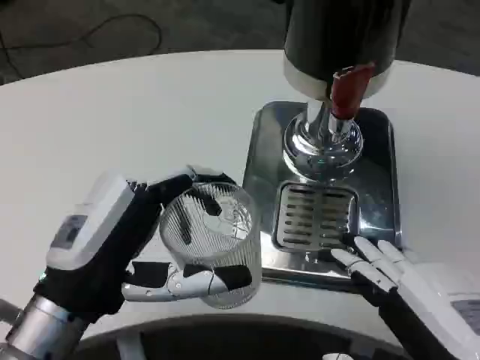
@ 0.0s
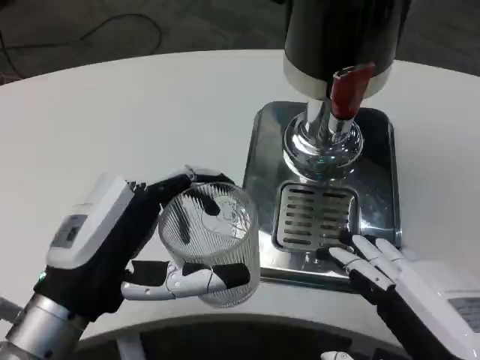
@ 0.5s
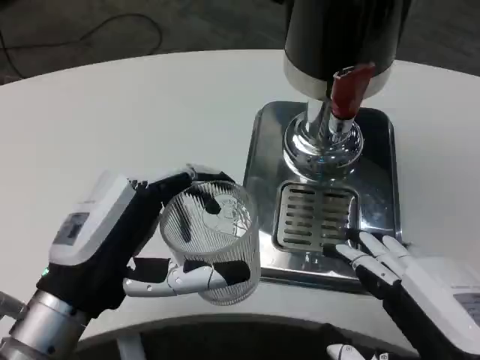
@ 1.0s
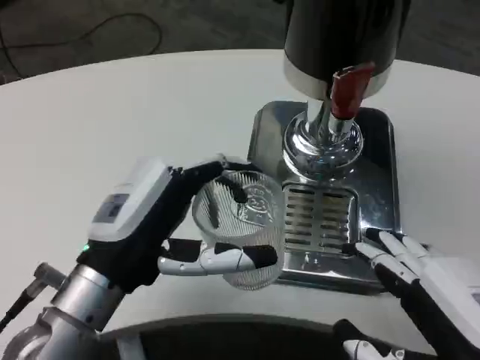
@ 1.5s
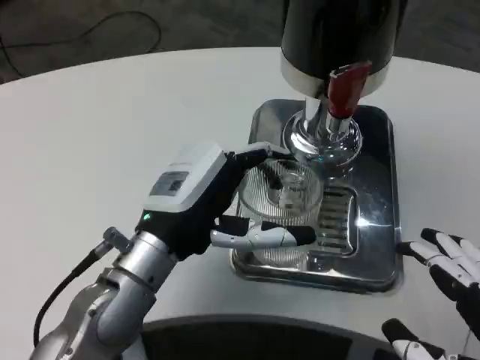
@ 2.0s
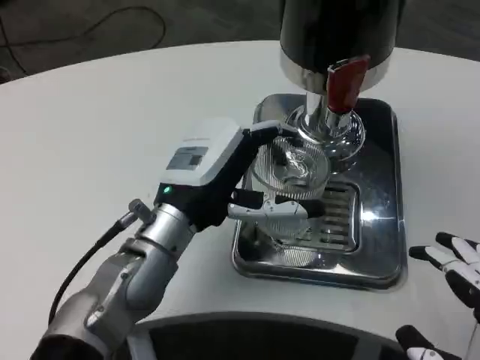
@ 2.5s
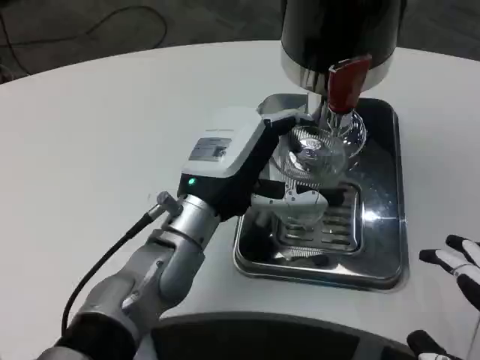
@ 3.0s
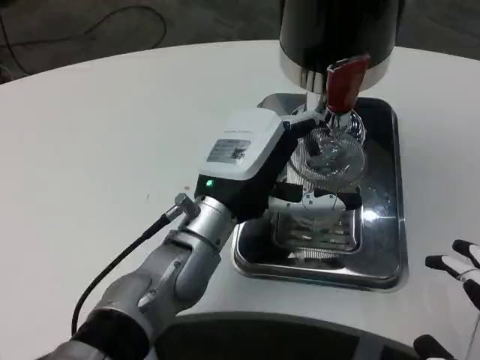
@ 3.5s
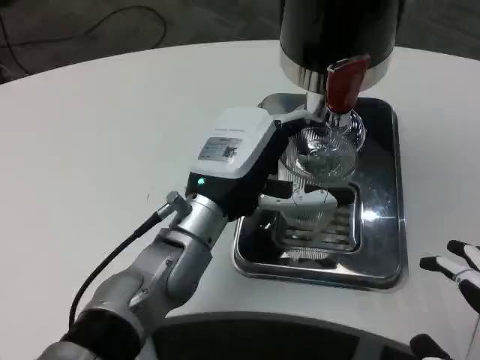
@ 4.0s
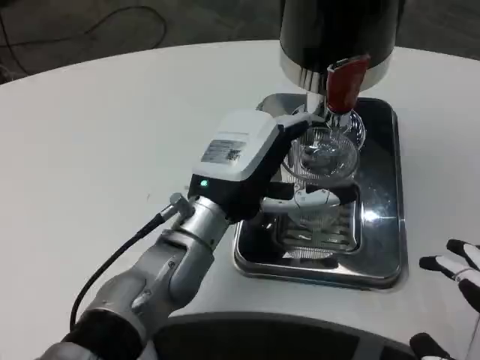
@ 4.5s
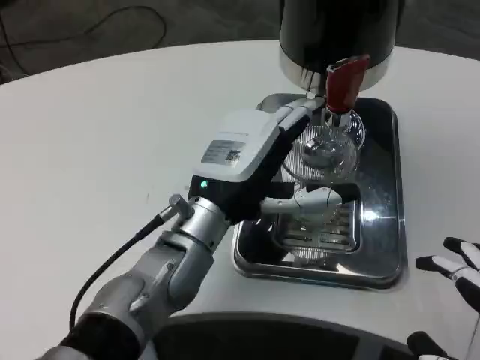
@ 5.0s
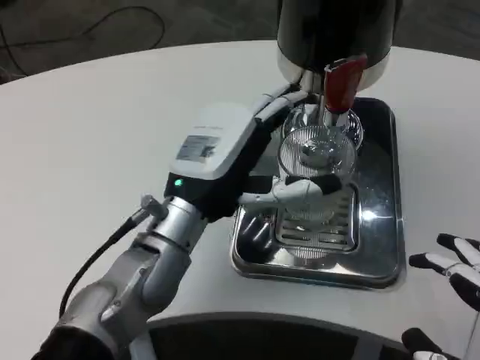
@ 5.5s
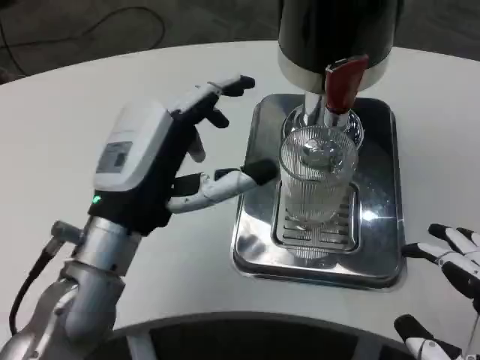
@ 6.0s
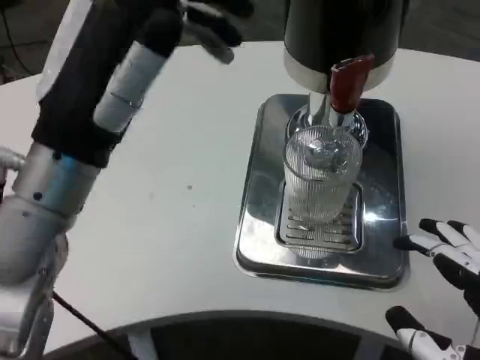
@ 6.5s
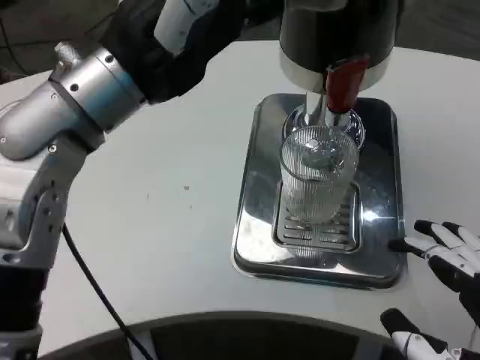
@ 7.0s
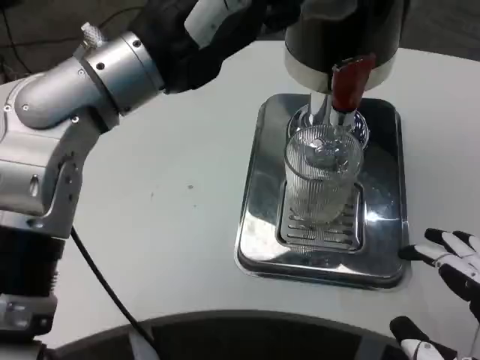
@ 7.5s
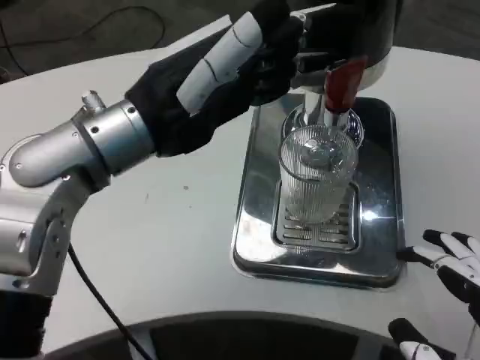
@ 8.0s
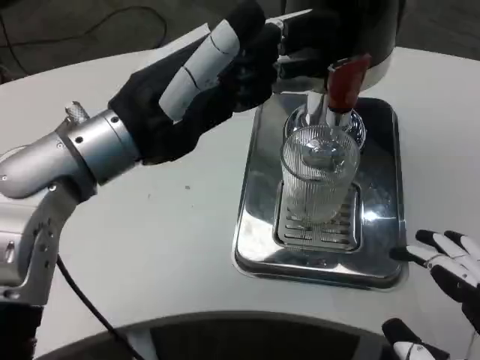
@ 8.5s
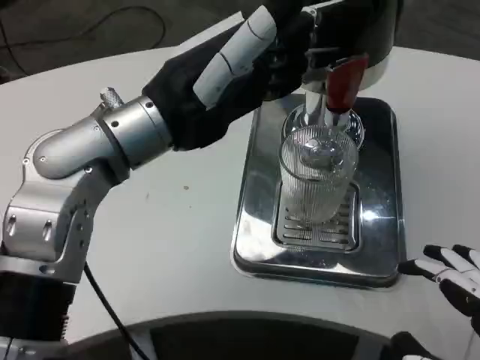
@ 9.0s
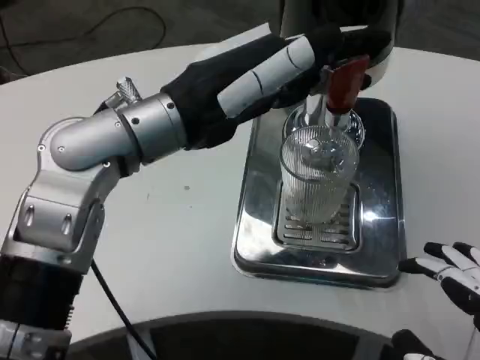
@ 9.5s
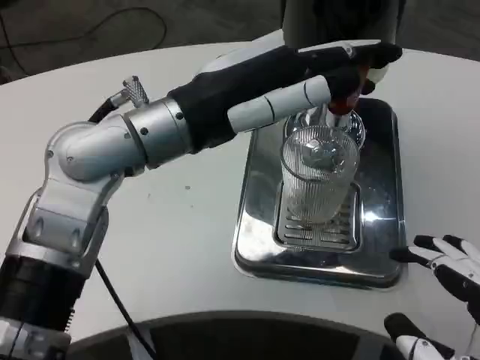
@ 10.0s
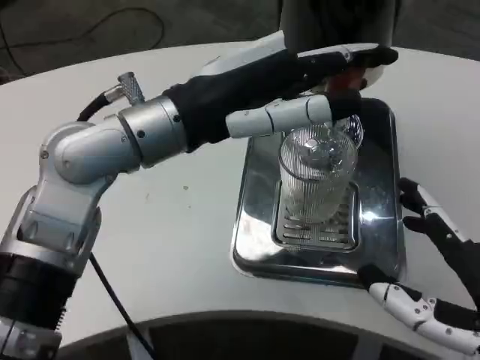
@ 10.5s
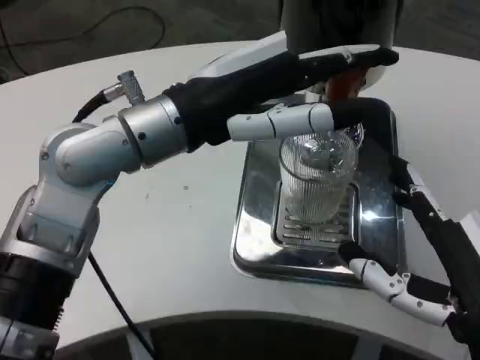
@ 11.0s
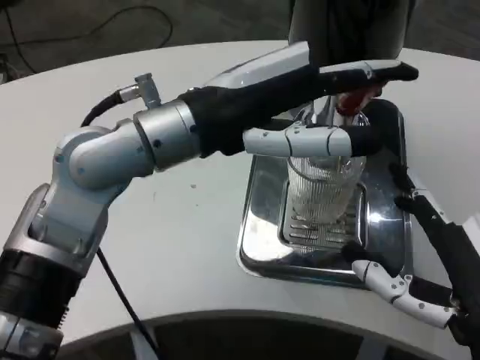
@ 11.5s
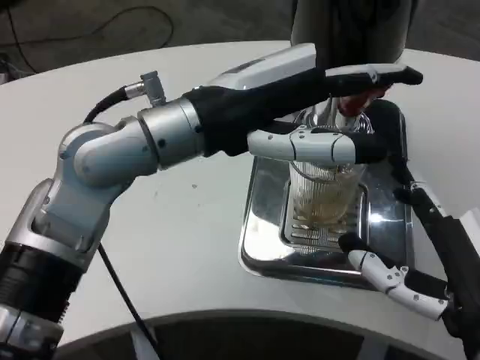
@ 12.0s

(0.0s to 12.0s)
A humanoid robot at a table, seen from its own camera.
Task of the whole recording: Grasp the cup under the faucet to collect the drink, then remove the cup.
0.0s - 2.0s: The left hand moves forward and to the right, approximately 10 cm.
2.0s - 4.0s: The left hand ends up some 5 cm from where it was.
4.0s - 6.0s: The left hand travels to the left and backward by some 10 cm.
6.0s - 8.0s: The left hand travels upward by about 10 cm.
10.0s - 12.0s: The right hand goes about 10 cm forward.

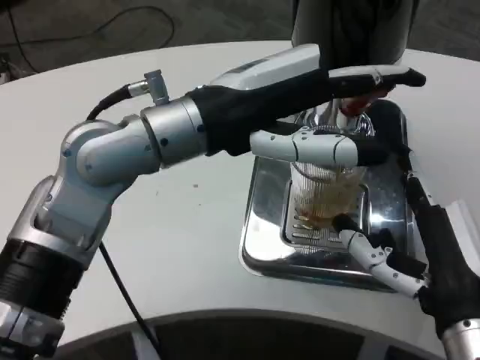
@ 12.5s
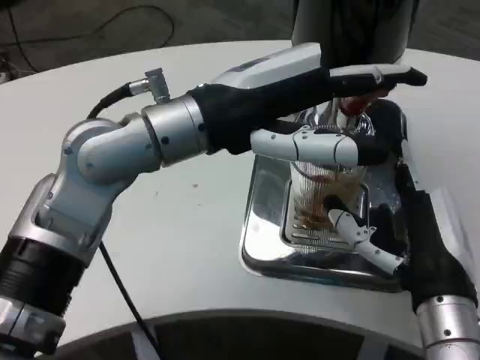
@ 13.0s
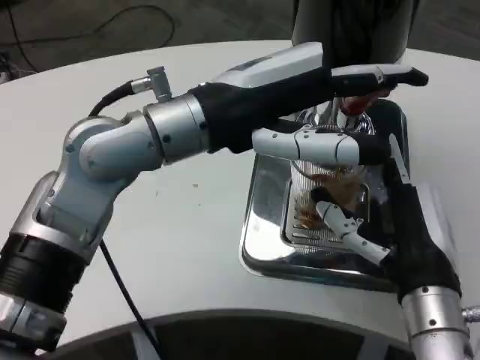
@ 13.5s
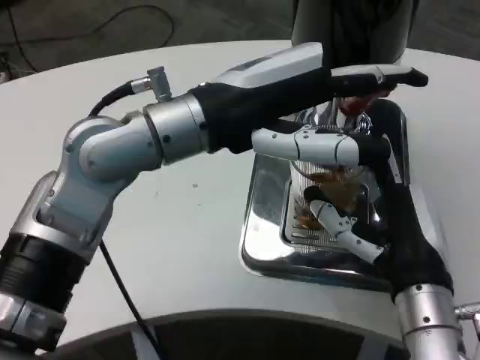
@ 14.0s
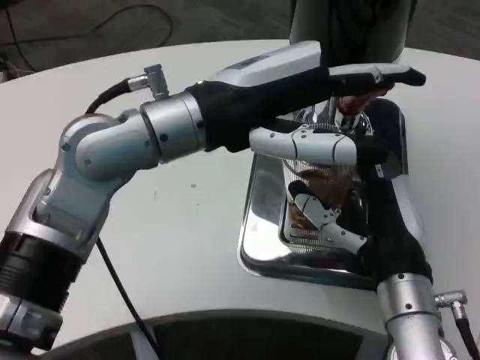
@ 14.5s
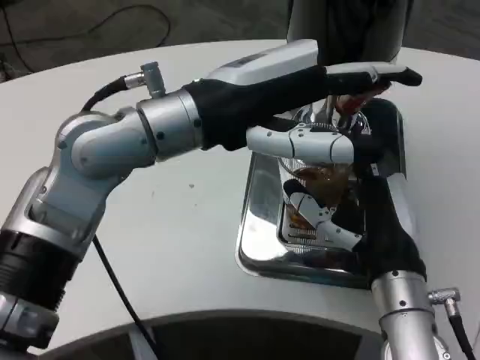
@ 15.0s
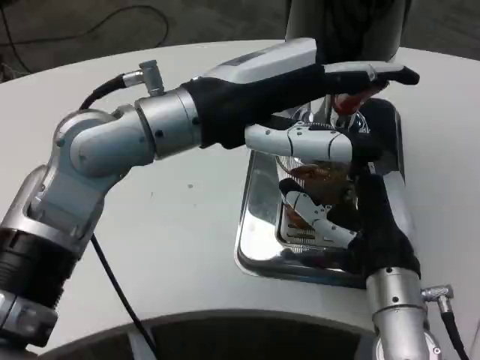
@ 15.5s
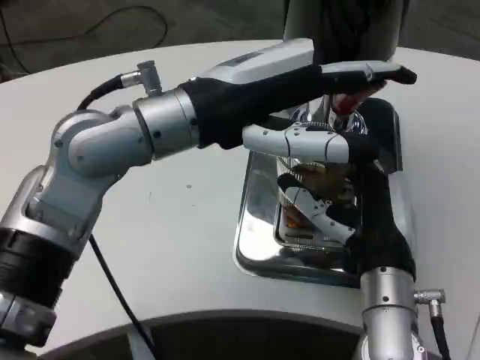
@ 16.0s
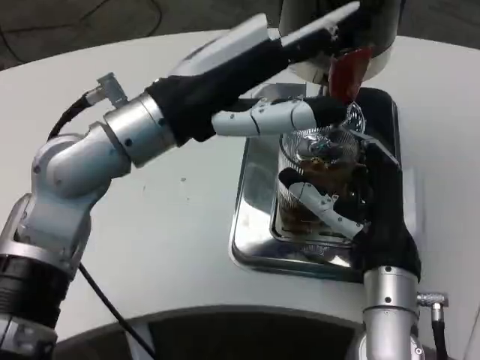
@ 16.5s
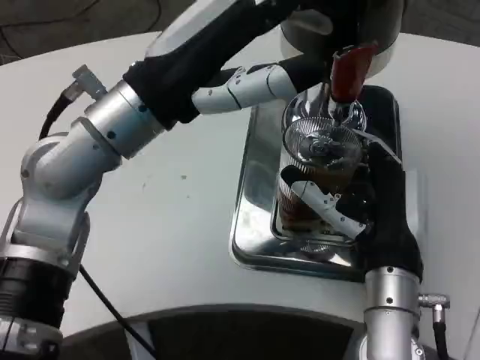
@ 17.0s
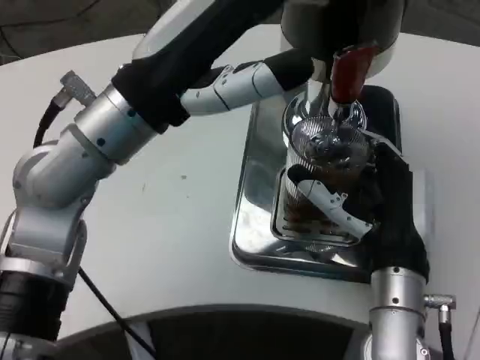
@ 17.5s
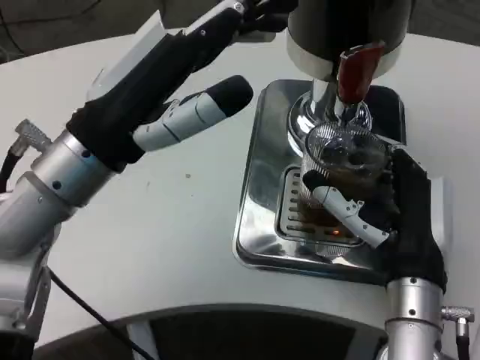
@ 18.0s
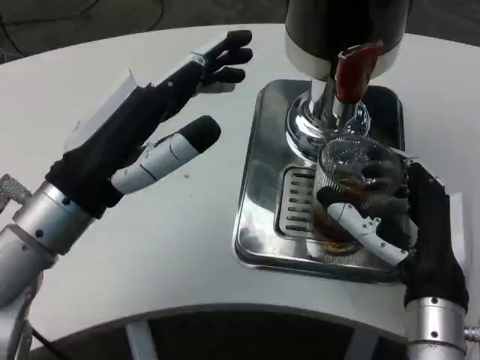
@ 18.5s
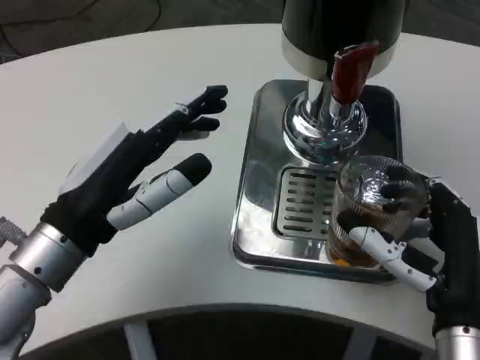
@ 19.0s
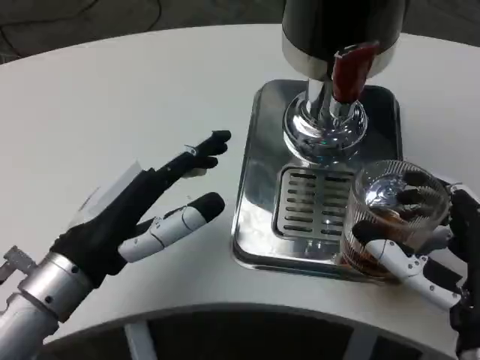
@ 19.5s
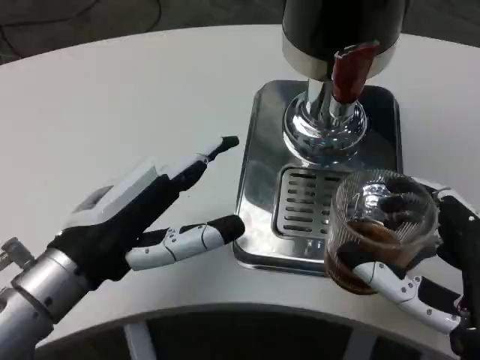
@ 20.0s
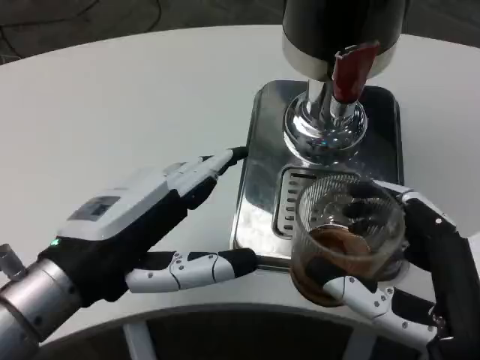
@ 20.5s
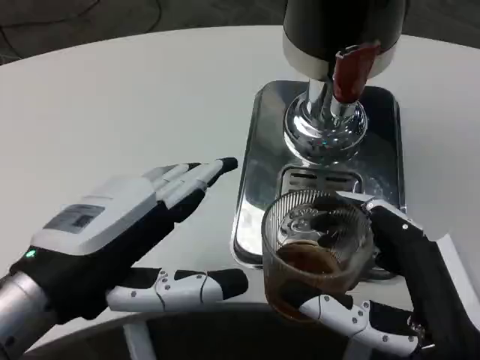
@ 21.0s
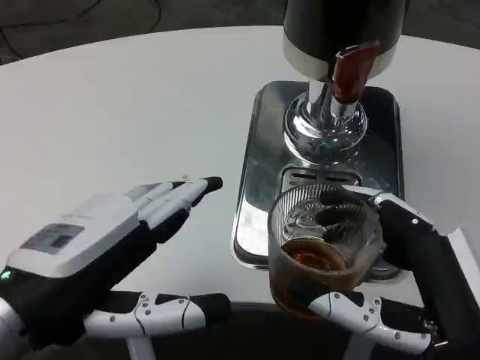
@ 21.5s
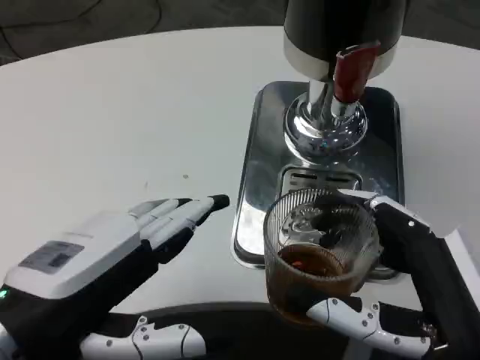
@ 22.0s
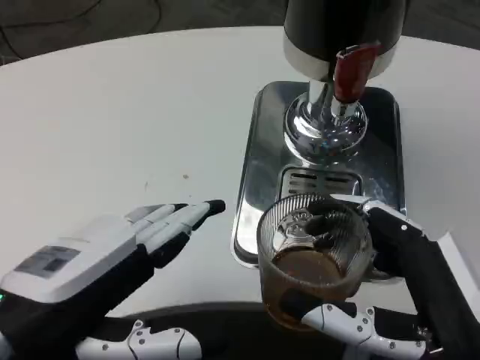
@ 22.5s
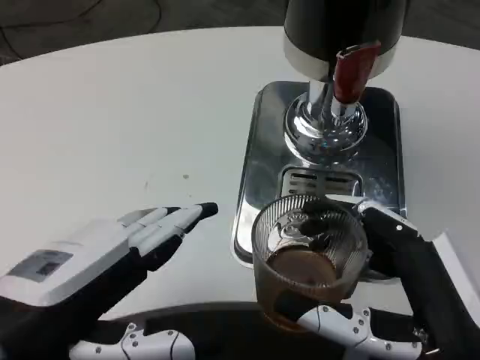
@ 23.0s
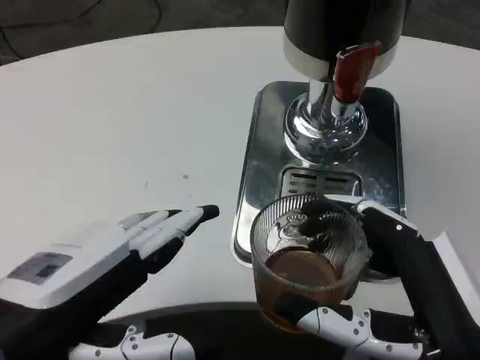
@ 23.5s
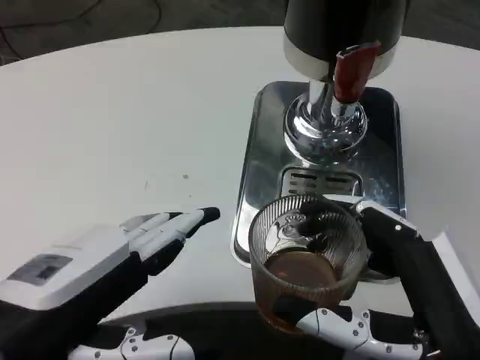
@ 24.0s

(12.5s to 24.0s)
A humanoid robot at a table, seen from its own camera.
Task of the whole recording: Grasp the cup under the faucet to collect the drink, then remove the cup.
12.5s - 14.5s: The right hand travels forward by roughly 5 cm.
16.5s - 18.5s: The left hand is displaced downward and to the left by some 10 cm.
18.5s - 20.0s: The right hand heads backward, covering approximately 10 cm.
20.0s - 22.0s: The left hand shifts about 10 cm backward.
22.0s - 24.0s: Neither hand changes place.

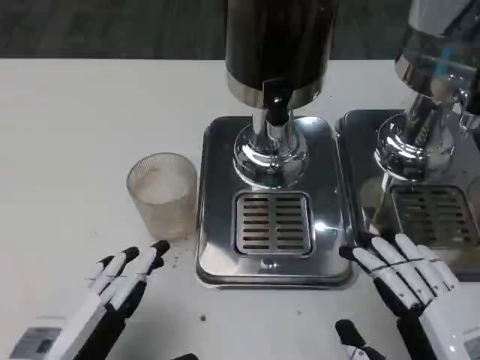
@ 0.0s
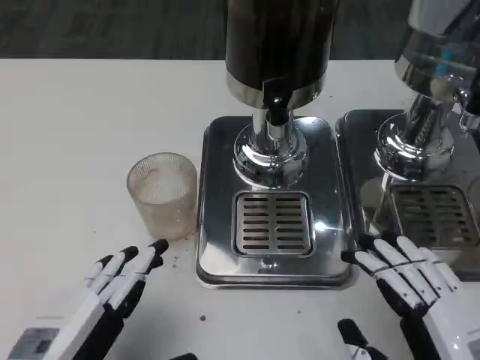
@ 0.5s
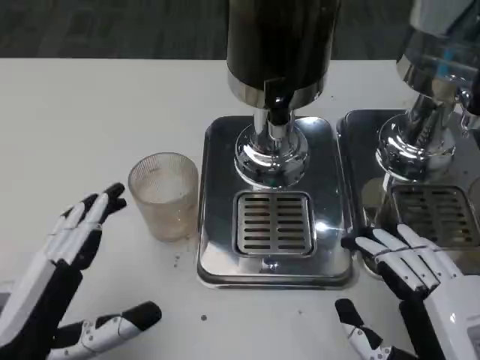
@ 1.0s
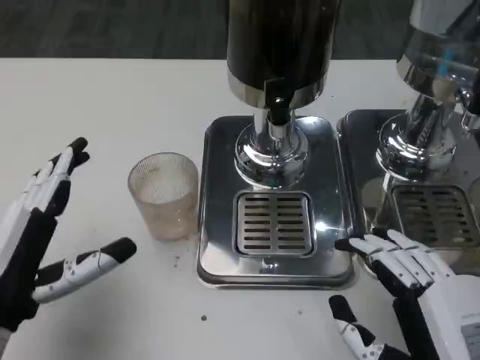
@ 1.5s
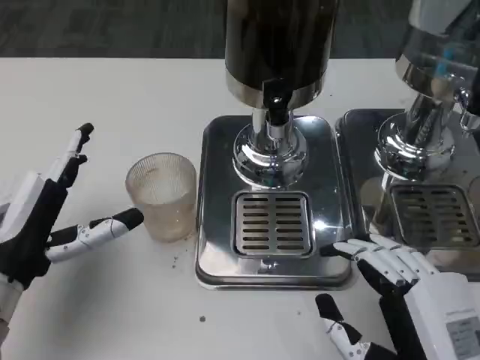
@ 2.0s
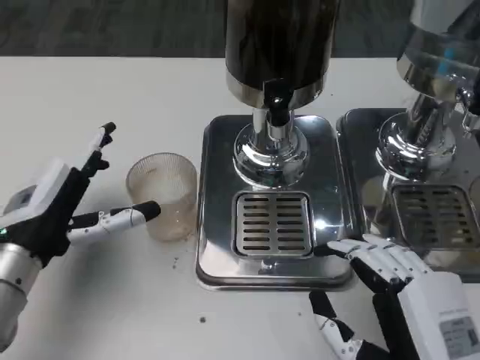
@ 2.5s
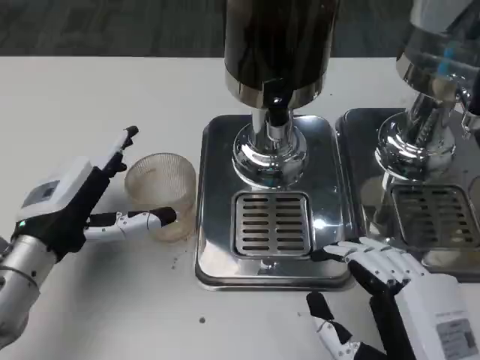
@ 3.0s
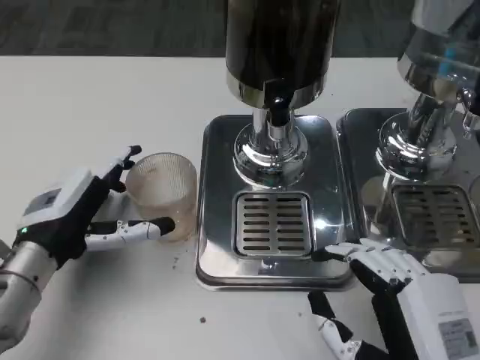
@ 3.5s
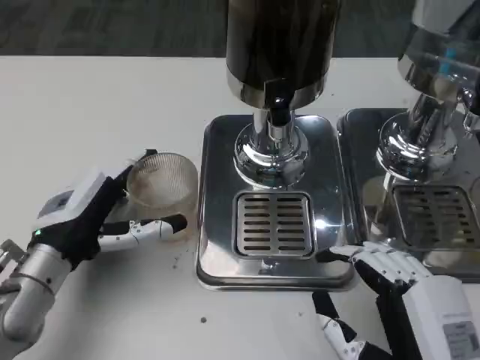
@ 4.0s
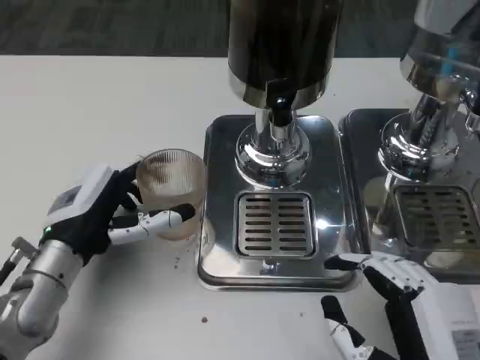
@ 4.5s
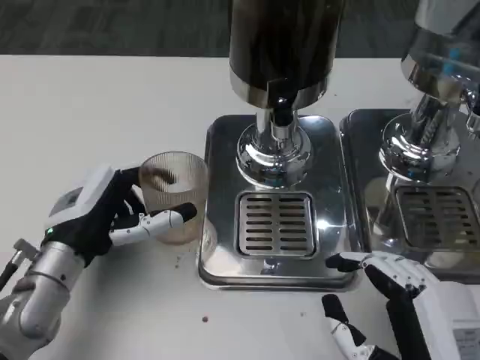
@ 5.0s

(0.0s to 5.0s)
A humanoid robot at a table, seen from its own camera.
Task of the whole recording: Grasp the cup under the faucet to collect the drink, then remove the cup.
0.0s - 2.5s: The left hand shifts about 15 cm forward.
